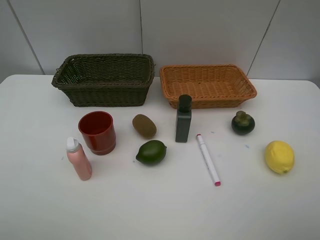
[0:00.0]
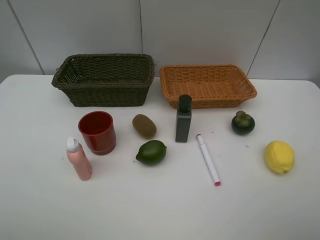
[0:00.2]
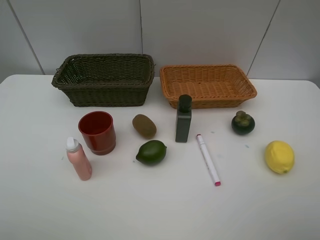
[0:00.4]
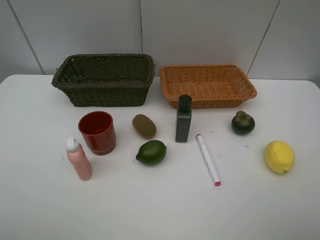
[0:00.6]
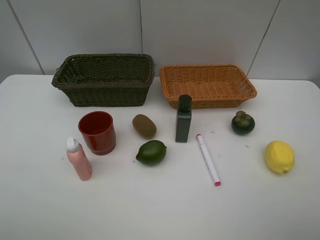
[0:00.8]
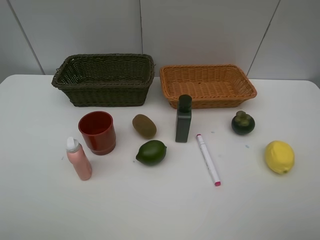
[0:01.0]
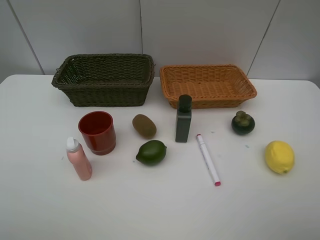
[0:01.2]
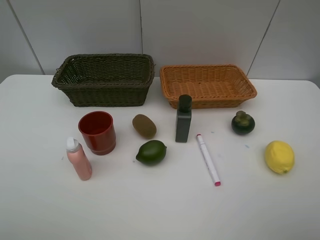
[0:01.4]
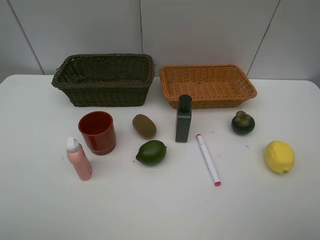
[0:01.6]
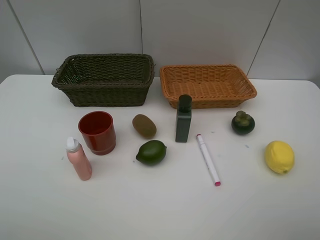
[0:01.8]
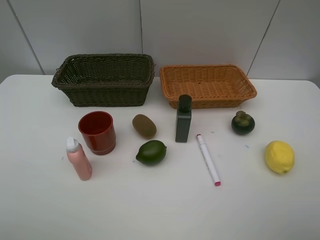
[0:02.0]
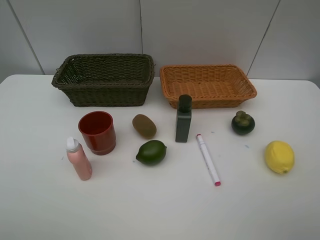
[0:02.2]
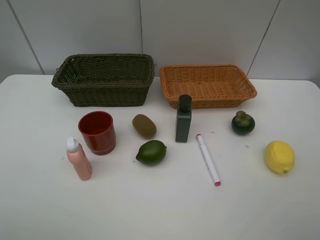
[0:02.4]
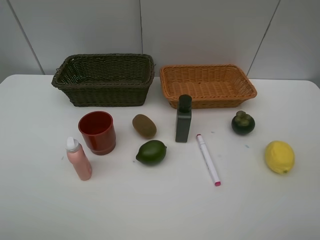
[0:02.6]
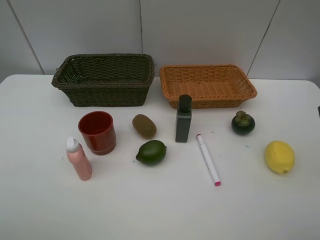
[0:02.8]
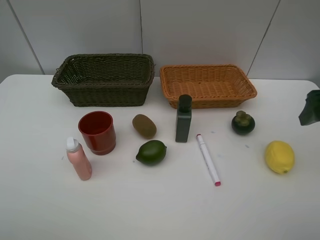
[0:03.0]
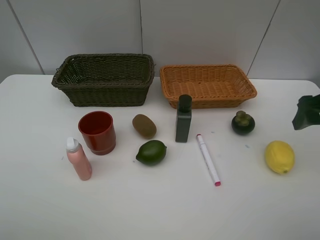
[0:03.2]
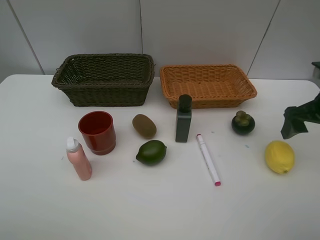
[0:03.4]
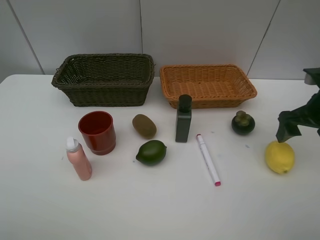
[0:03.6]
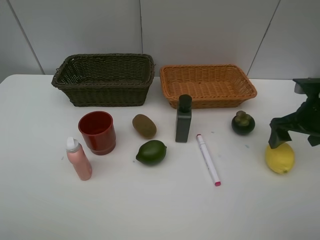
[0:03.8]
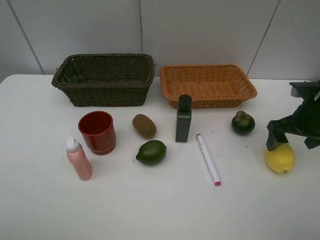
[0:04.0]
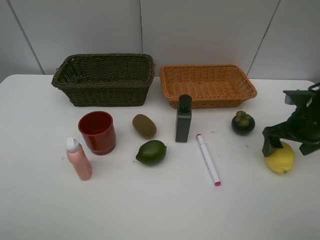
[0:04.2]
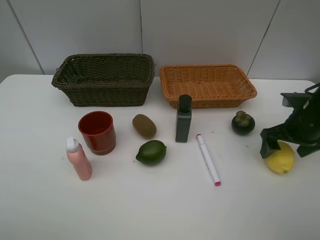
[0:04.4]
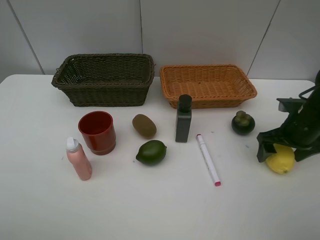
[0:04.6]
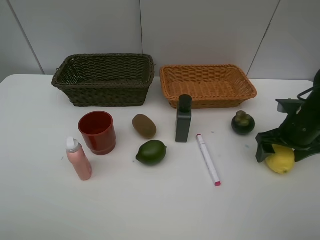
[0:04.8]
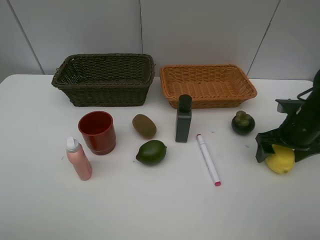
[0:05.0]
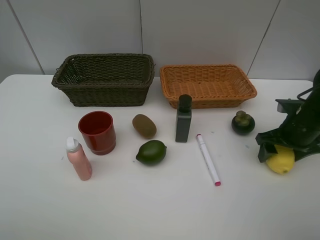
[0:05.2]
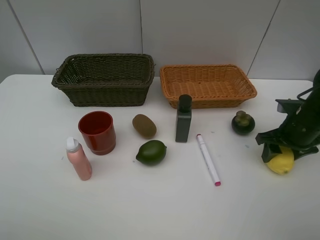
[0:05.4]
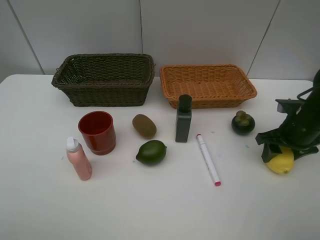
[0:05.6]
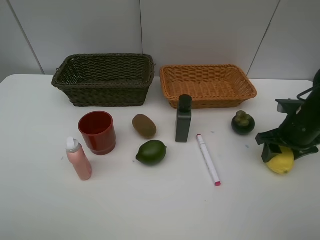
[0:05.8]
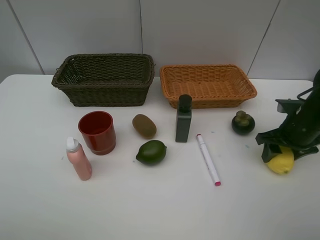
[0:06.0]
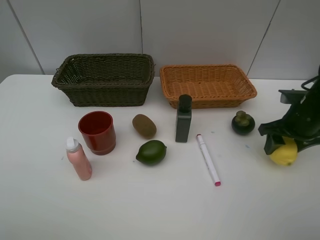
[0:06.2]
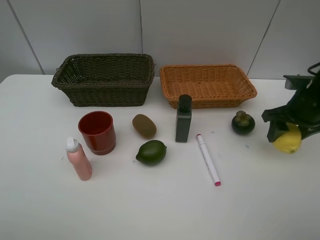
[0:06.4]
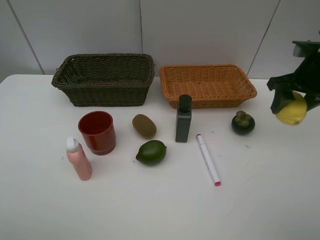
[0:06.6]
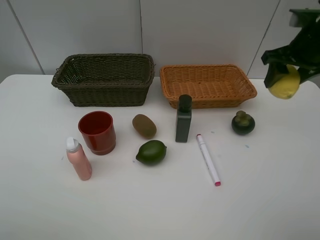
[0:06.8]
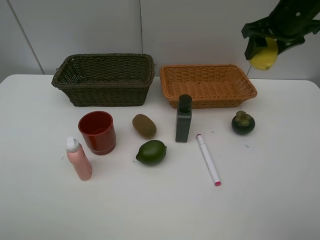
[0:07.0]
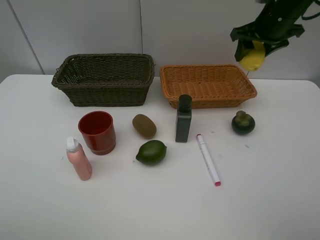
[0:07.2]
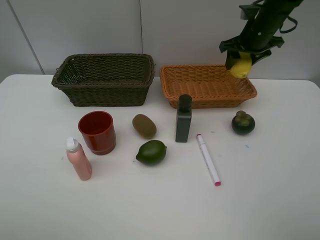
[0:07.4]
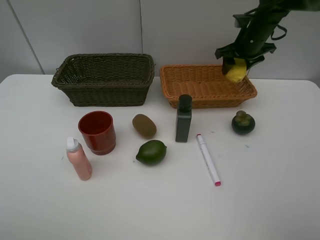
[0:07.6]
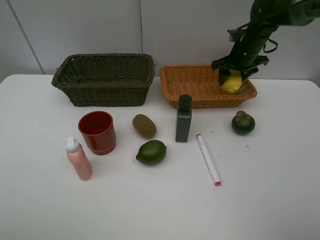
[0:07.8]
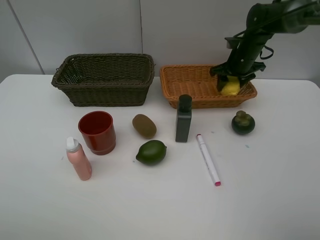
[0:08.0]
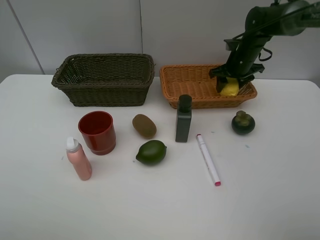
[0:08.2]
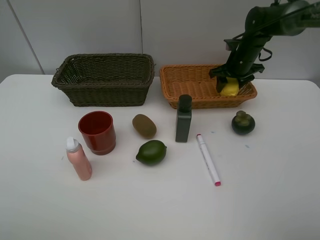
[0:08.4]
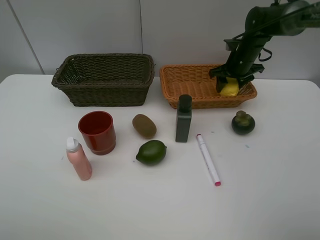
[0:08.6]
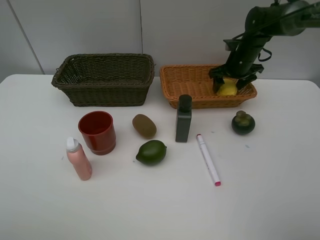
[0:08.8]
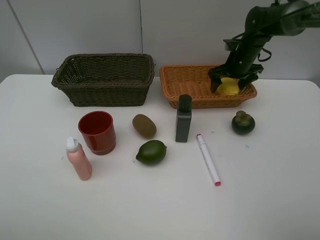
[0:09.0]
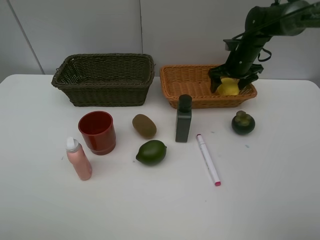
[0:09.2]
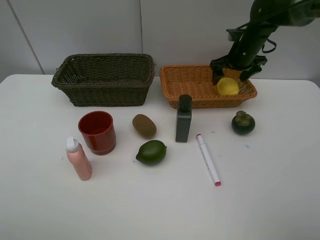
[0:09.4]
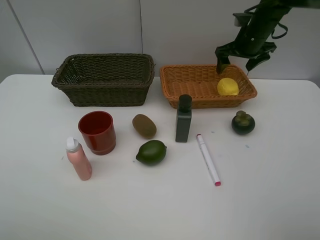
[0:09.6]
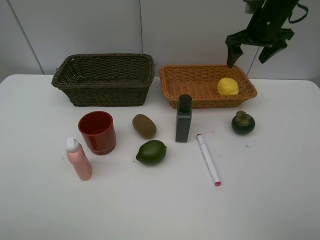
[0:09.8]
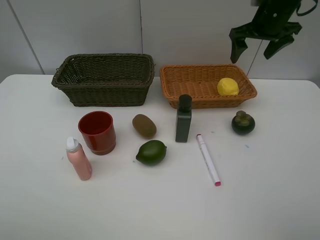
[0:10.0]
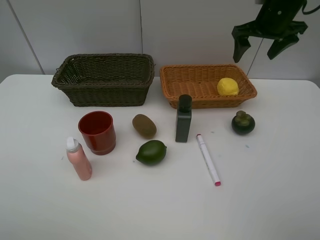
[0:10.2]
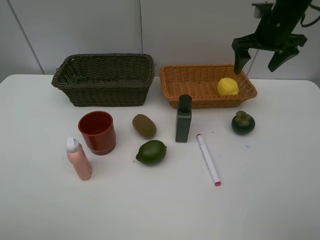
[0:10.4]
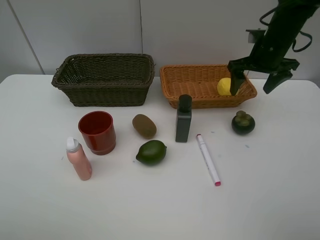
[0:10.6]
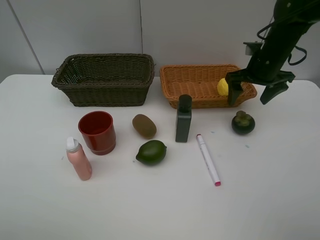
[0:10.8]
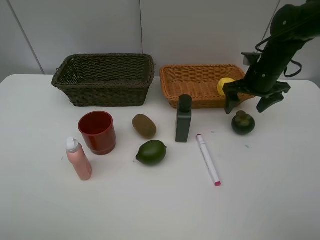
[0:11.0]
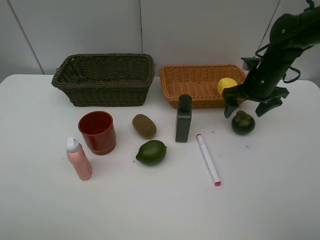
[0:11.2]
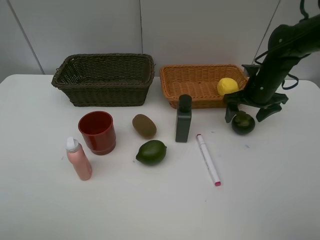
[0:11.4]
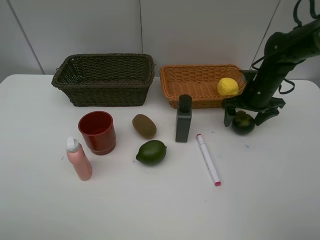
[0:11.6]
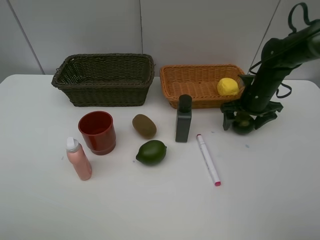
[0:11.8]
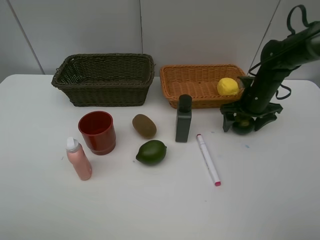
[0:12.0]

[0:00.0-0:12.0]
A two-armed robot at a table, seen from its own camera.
Task of the whole recording: Place multiple objects separately in different baskets.
Step, 0:00.0 to 0:06.2: Pick up the lemon with right gripper.
Step, 0:06.4 to 0:09.4: Place the lemon in the light basket with right gripper.
0:00.0 to 0:01.6: Both grippers stay about where they are.
0:01.6 to 0:03.0: The right gripper travels forward by about 20 cm.
0:03.0 to 0:04.4: The right gripper moves downward and forward, approximately 15 cm.
0:04.4 to 0:06.0: The right gripper closes up.
0:06.0 to 0:07.6: The right gripper moves forward and upward, about 20 cm.
0:07.6 to 0:09.0: The right gripper is displaced downward by about 5 cm, and opens.
0:09.0 to 0:10.4: The right gripper travels upward and backward by some 15 cm.
0:10.4 to 0:12.0: The right gripper goes approximately 15 cm downward.

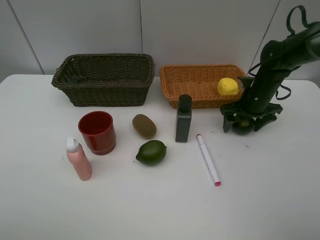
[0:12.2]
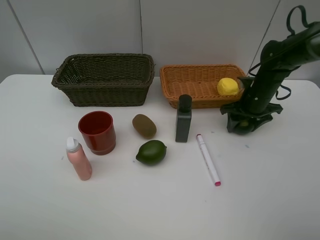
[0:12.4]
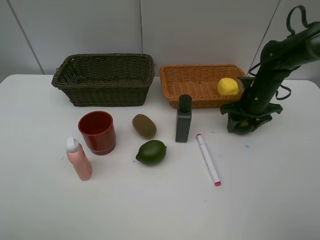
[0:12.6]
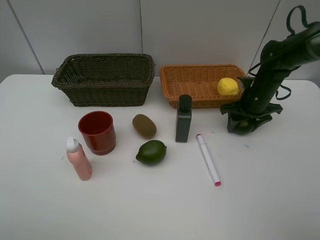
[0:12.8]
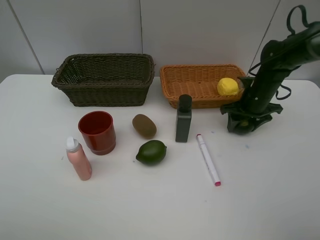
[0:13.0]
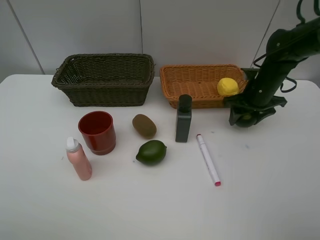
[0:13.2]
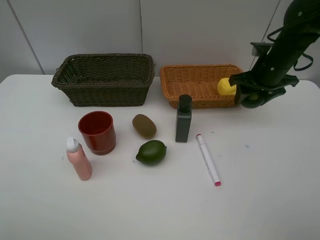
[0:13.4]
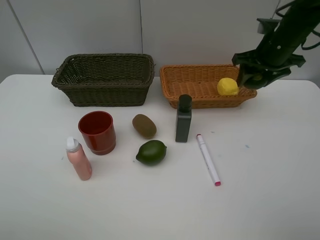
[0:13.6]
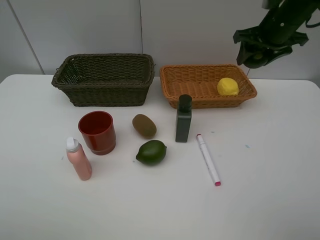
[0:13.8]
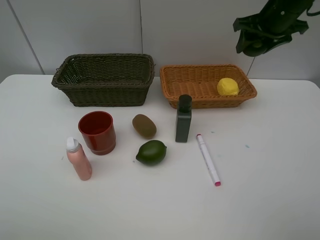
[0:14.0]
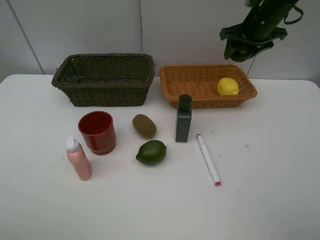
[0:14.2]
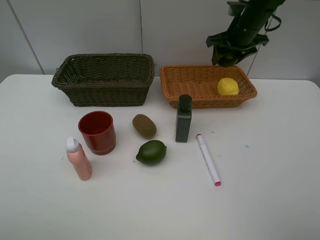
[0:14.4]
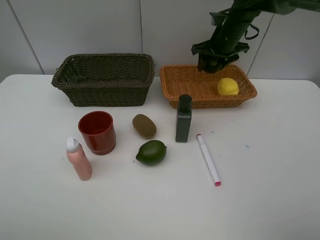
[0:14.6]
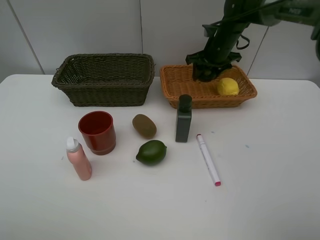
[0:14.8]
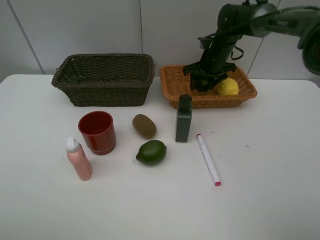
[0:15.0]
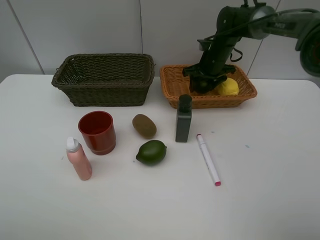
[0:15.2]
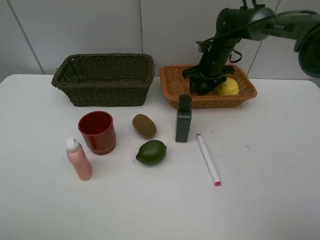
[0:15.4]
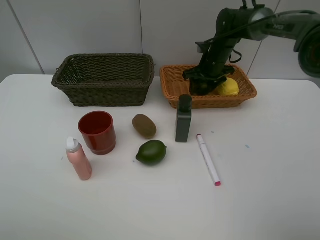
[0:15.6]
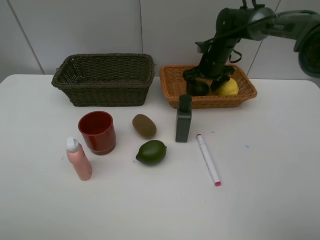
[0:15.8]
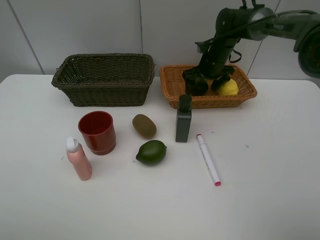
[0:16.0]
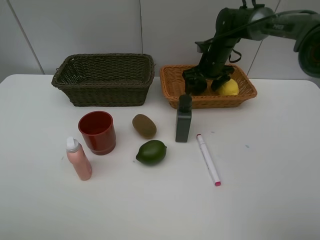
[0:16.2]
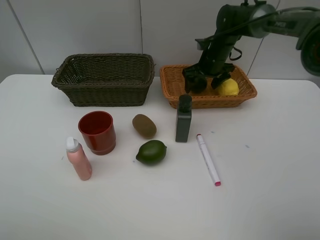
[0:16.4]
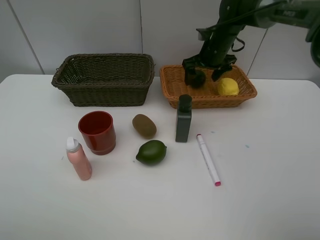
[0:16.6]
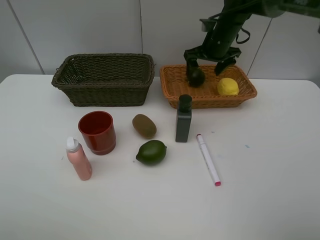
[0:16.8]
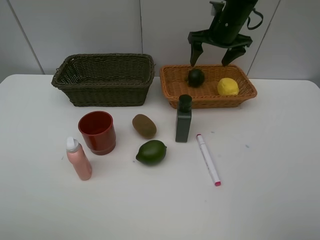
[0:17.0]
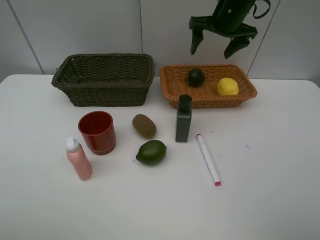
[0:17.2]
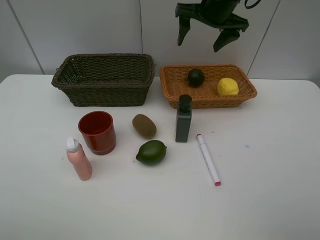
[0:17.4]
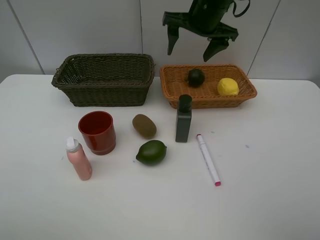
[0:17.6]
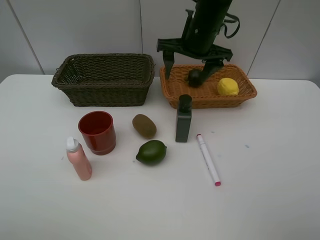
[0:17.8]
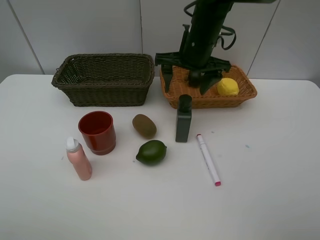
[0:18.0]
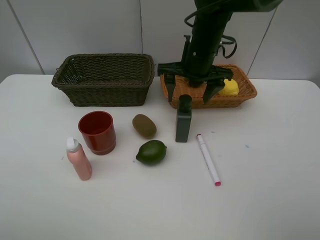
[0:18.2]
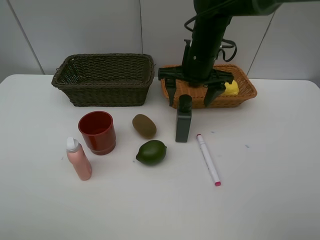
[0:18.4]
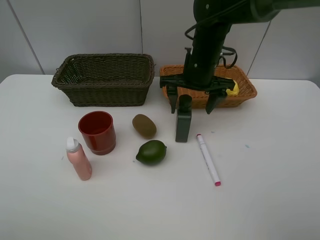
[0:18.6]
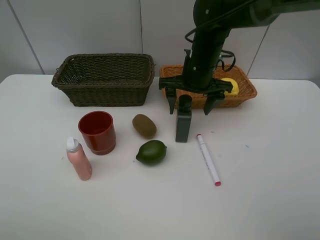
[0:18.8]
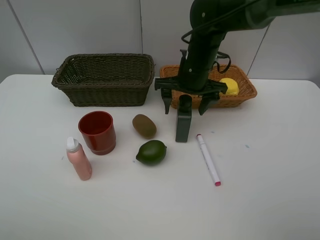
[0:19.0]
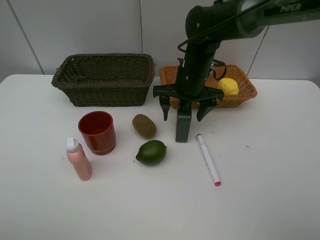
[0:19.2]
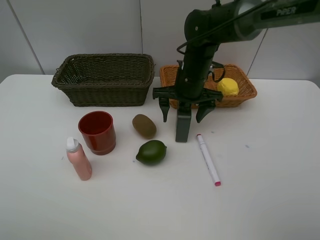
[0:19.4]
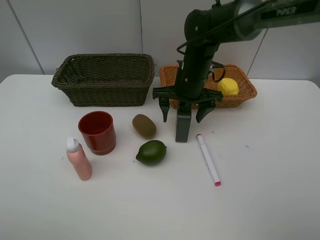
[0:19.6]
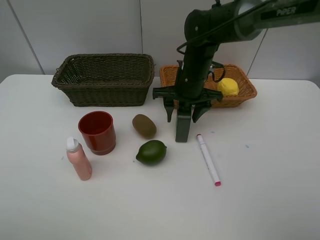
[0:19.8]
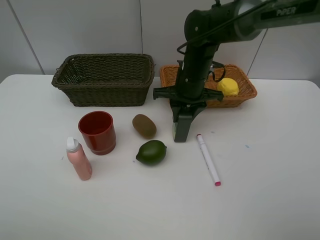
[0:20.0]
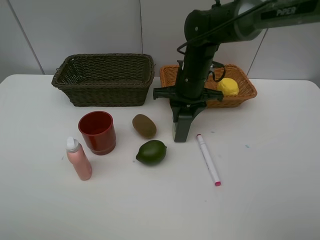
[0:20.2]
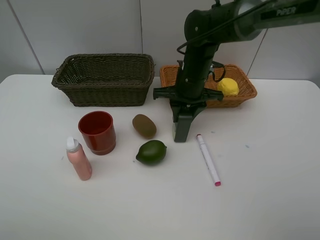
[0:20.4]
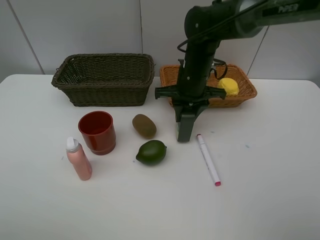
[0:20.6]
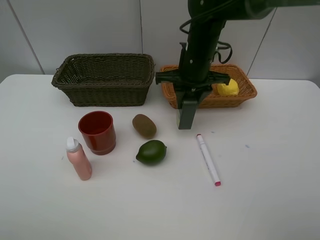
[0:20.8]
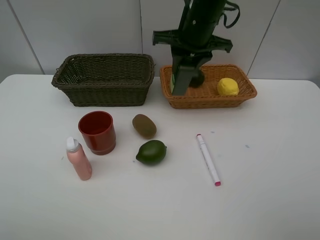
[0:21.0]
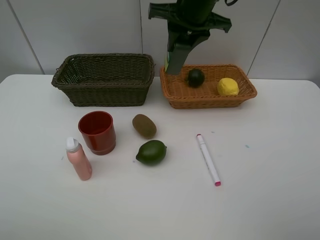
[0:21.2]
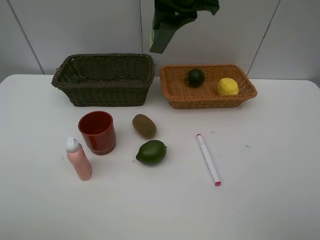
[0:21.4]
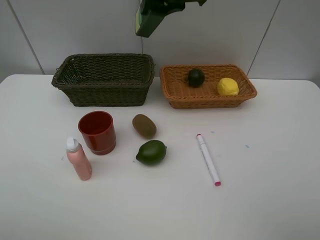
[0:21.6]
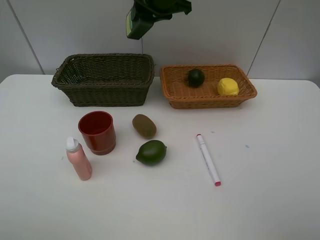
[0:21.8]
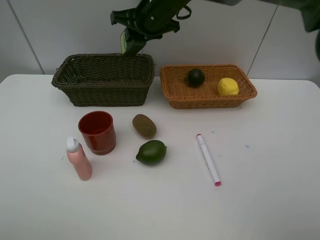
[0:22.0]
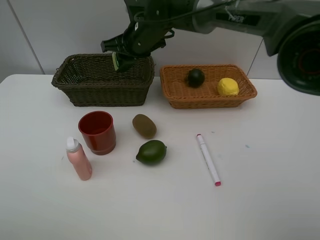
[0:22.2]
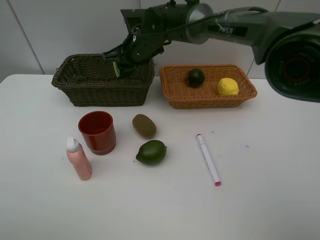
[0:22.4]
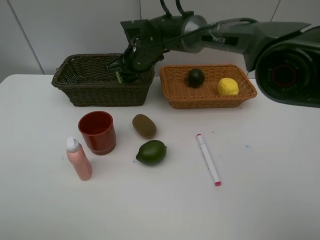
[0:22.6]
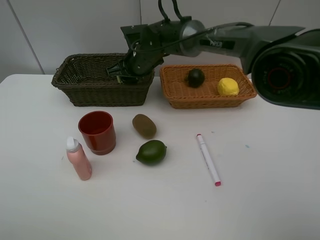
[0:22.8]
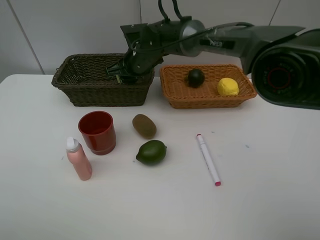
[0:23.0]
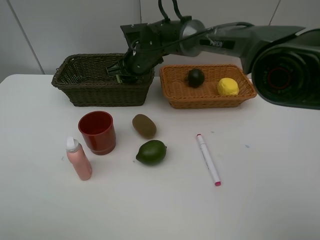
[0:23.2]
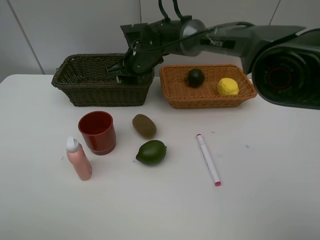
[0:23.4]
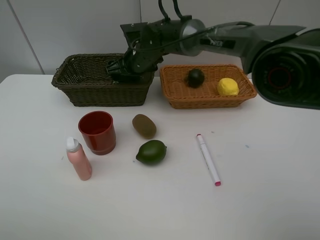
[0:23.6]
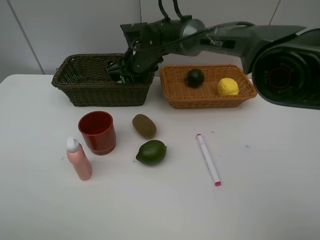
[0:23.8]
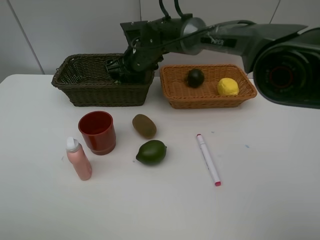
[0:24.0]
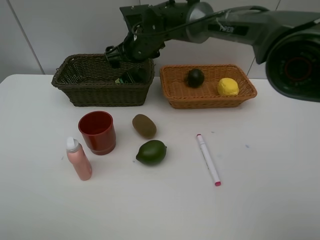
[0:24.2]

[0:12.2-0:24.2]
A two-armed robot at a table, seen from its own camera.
Task of the whole recording: Place multiple objects separately in different baskets.
Step, 0:13.4 to 0:16.6: Place the mangosteen in the light basket with right gripper.
Step, 0:16.8 to 0:20.8: Pick up the hard facial cleanser with right gripper.
0:12.2 to 0:13.8: The right gripper is displaced upward by approximately 15 cm.
0:13.8 to 0:15.2: The right gripper travels downward, forward and to the left by approximately 20 cm.
0:15.2 to 0:16.6: The right gripper opens its fingers.
0:16.6 to 0:18.2: The right gripper goes some 15 cm backward and to the left, and travels upward and back again, about 10 cm each way.
0:18.2 to 0:19.8: The right gripper travels downward by roughly 5 cm, and closes.
0:19.8 to 0:21.2: The right gripper heads upward, covering approximately 15 cm.
0:21.2 to 0:22.6: The right gripper is displaced downward and to the left by about 20 cm.
0:22.6 to 0:24.2: The right gripper opens up.
